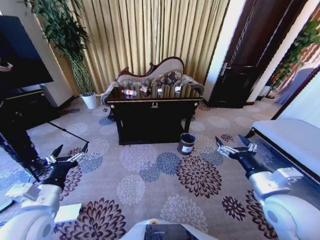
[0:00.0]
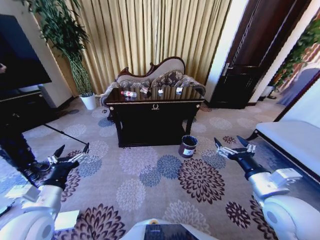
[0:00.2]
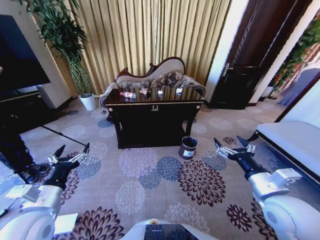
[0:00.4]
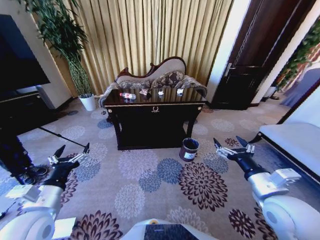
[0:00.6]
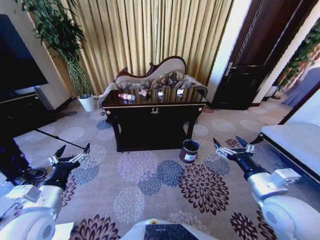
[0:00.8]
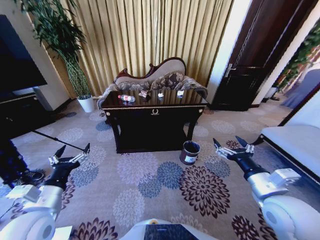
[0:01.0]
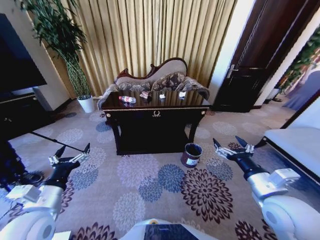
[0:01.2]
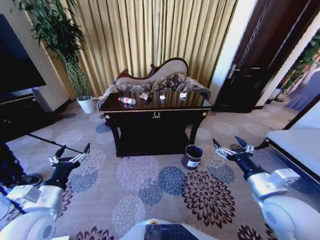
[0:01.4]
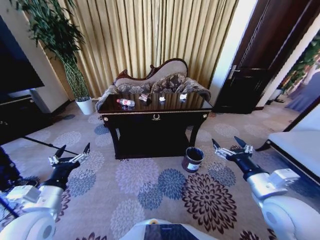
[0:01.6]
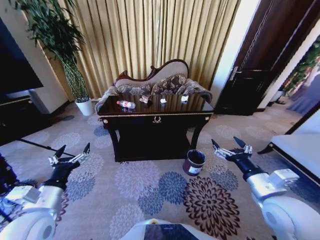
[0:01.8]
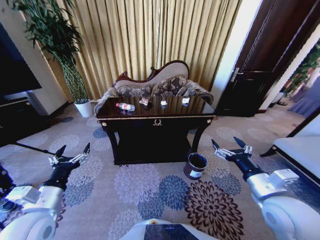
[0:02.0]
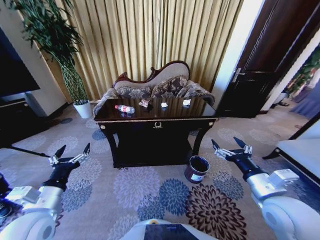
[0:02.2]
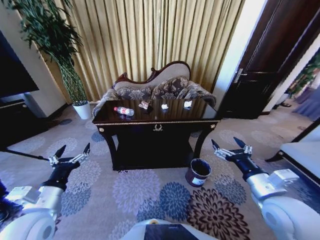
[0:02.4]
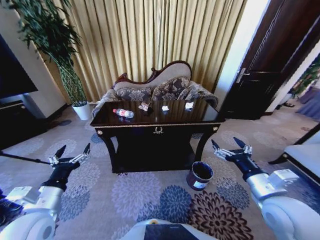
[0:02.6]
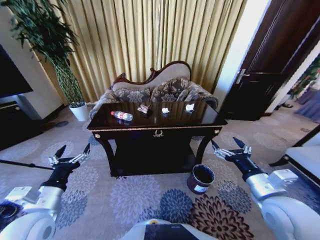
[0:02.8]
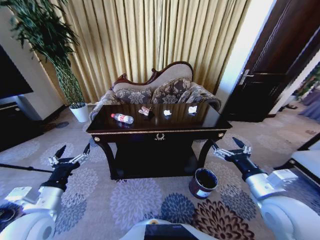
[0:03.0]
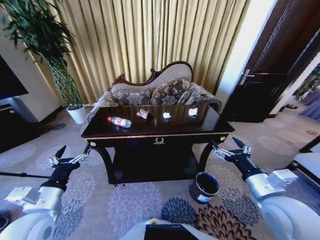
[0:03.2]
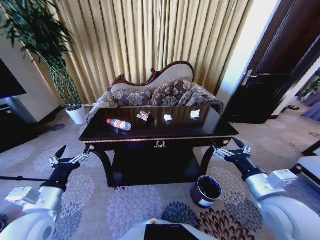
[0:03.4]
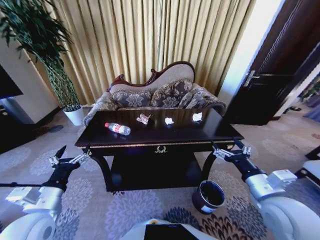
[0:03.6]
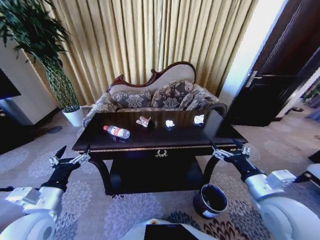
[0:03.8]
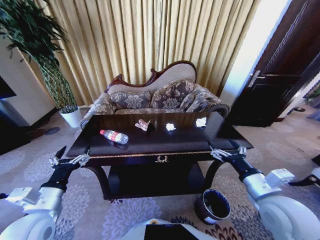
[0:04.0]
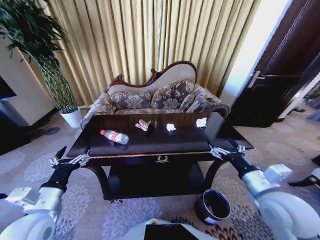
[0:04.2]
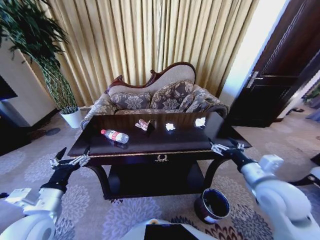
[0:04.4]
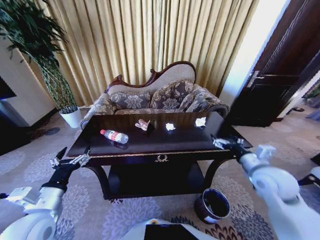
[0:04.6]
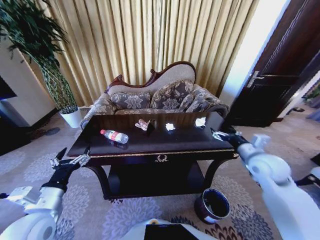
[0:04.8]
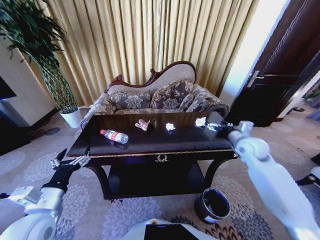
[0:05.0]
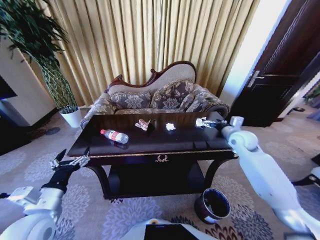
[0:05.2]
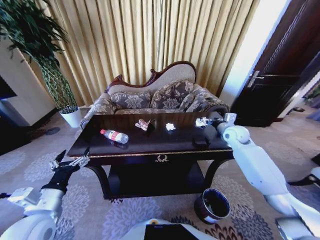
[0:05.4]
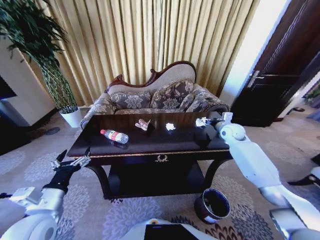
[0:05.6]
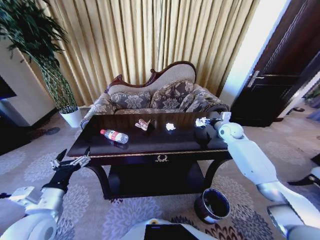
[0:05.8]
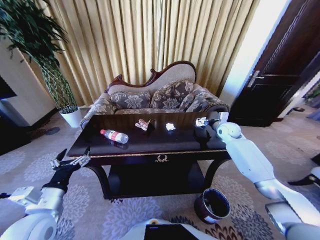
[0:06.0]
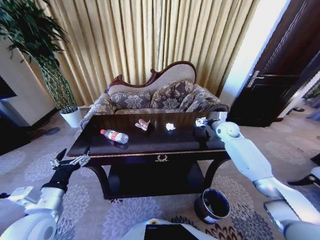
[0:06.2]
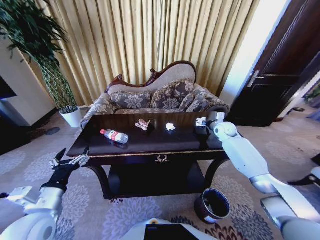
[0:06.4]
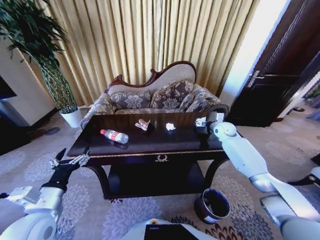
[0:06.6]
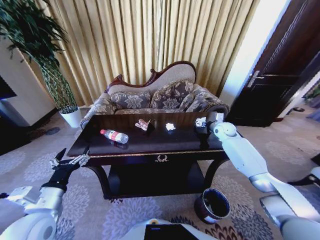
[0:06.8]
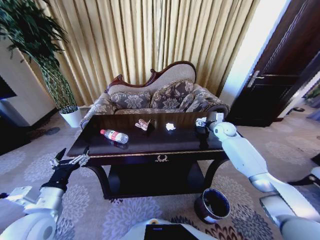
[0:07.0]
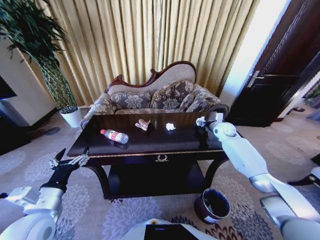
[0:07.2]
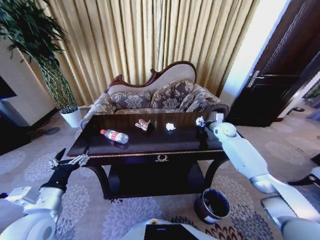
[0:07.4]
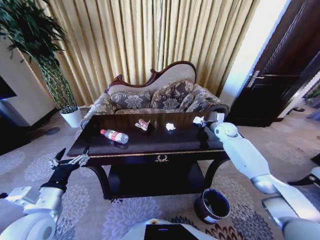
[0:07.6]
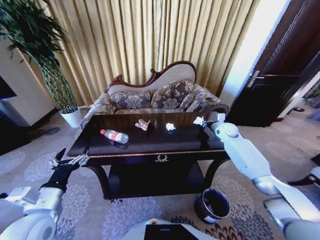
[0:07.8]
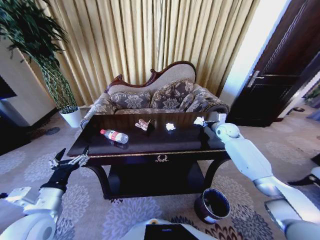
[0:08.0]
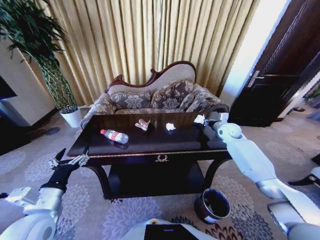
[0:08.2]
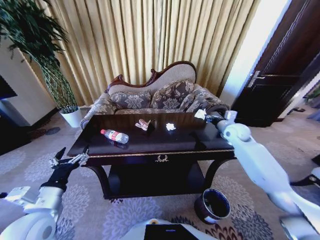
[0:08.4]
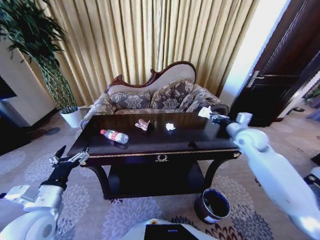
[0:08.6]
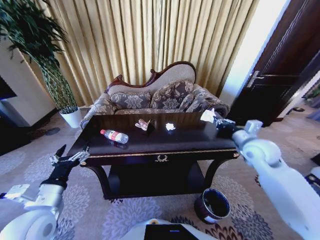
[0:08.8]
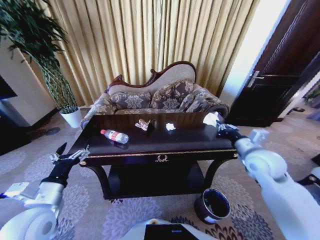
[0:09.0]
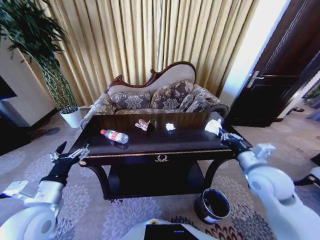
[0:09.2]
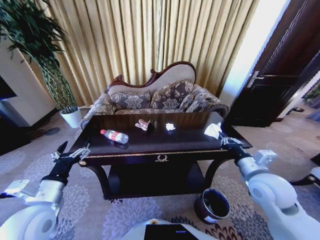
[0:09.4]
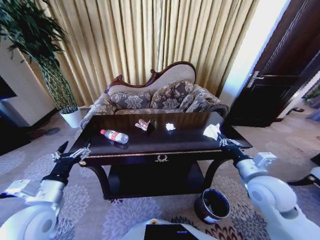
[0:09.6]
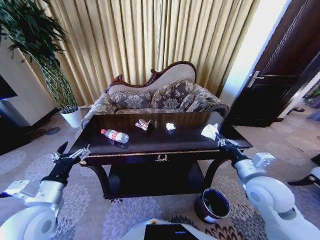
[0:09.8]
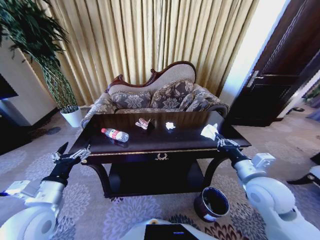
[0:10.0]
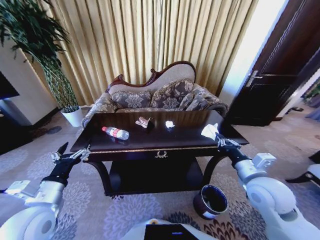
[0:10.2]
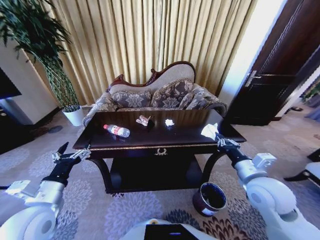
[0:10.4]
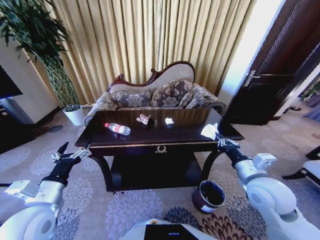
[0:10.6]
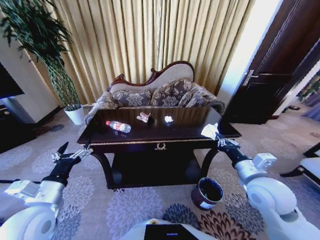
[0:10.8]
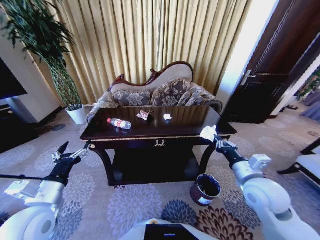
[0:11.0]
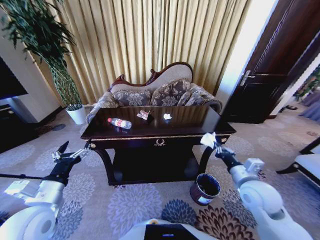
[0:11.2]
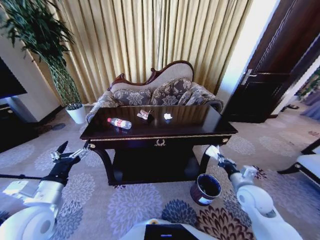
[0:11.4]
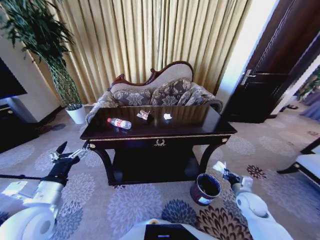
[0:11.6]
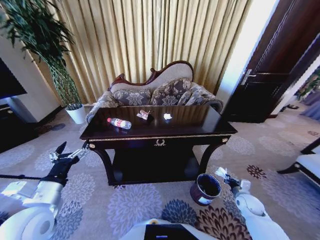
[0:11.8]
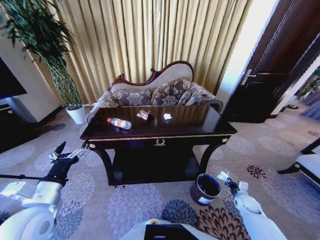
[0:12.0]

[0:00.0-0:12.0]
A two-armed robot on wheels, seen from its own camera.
Task of the whole recording: Move to the front of the table and place the trash on the table into the trash bin.
0:04.4 to 0:06.0: The right gripper is displaced forward by roughly 30 cm.
0:06.0 to 0:07.6: The right gripper closes.
0:07.6 to 0:09.0: The right gripper moves backward, about 25 cm.
0:09.0 to 0:10.4: The right gripper heads backward, covering about 10 cm.
0:10.4 to 0:12.0: The right gripper goes about 35 cm downward and to the right.

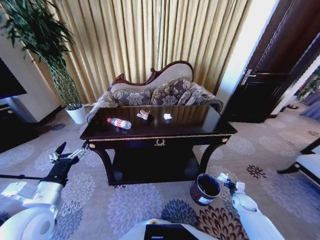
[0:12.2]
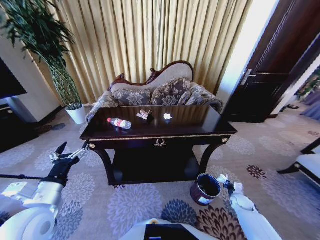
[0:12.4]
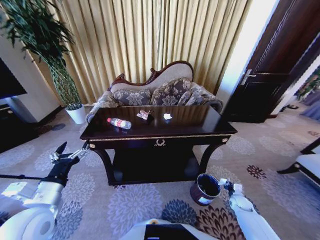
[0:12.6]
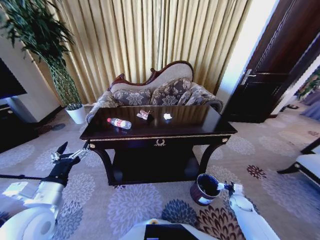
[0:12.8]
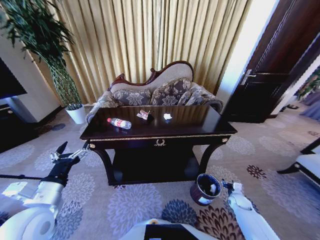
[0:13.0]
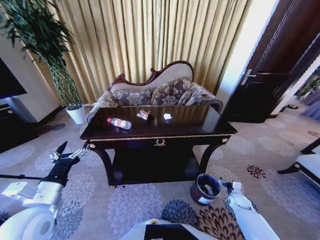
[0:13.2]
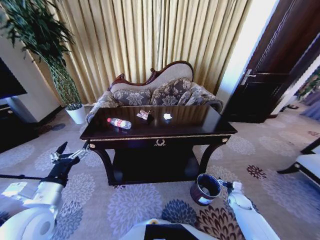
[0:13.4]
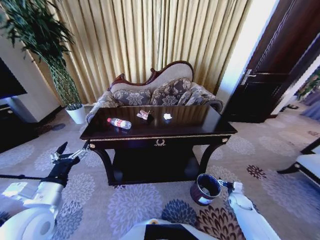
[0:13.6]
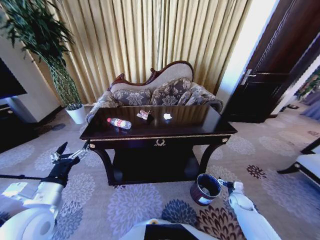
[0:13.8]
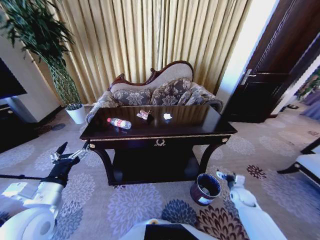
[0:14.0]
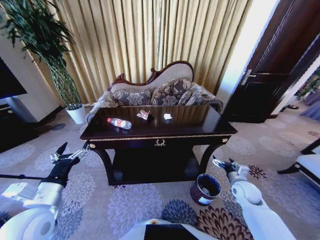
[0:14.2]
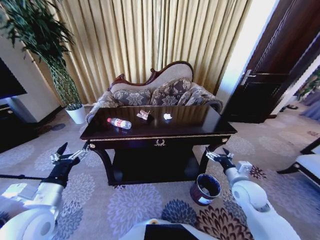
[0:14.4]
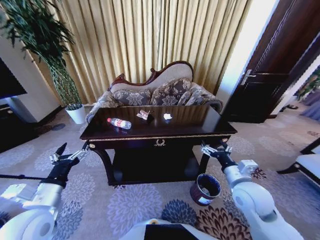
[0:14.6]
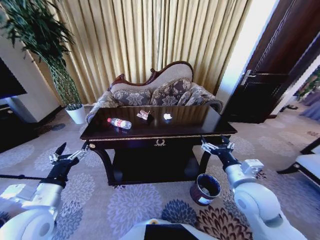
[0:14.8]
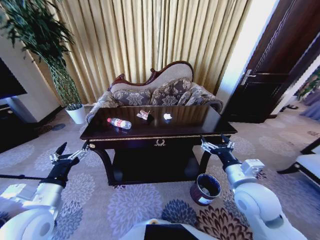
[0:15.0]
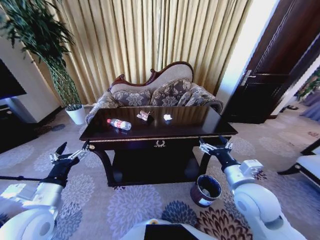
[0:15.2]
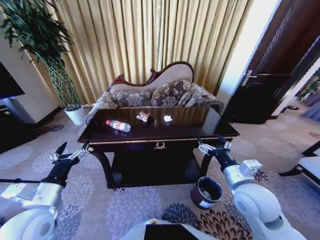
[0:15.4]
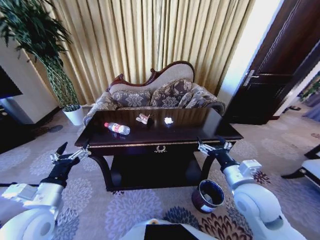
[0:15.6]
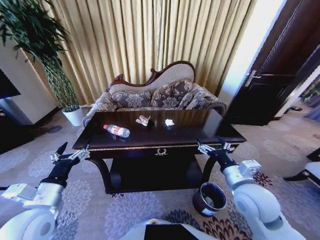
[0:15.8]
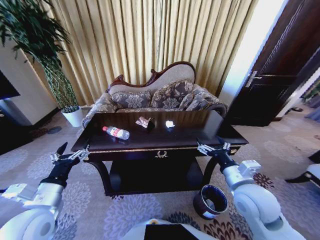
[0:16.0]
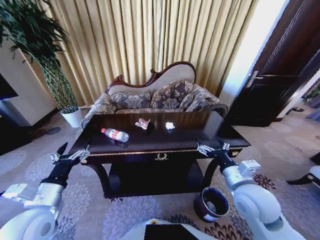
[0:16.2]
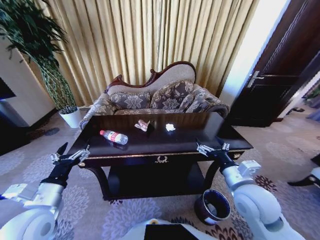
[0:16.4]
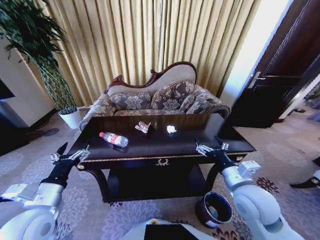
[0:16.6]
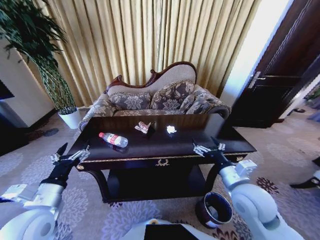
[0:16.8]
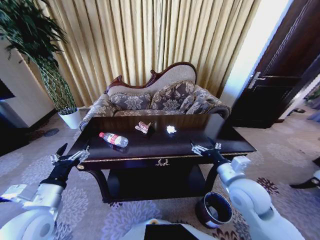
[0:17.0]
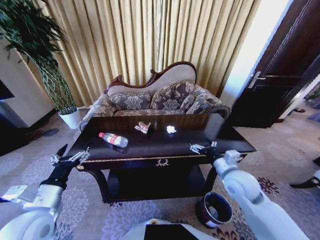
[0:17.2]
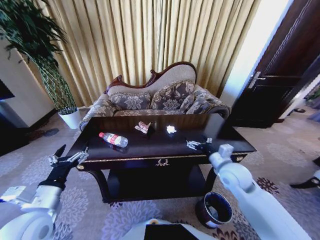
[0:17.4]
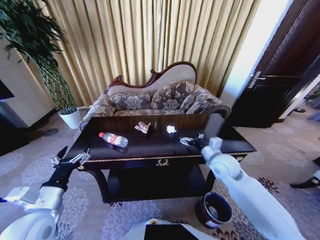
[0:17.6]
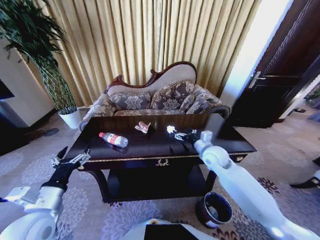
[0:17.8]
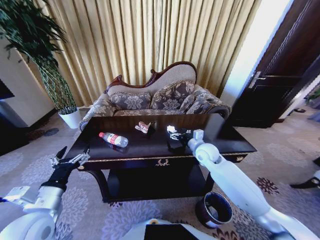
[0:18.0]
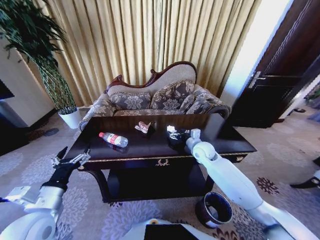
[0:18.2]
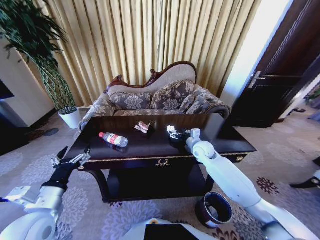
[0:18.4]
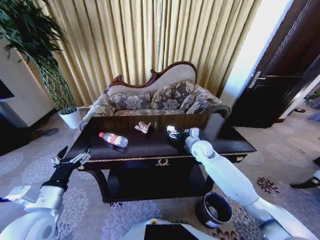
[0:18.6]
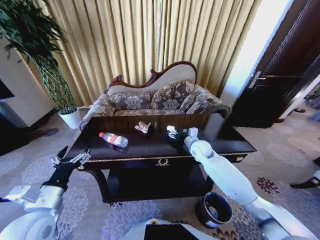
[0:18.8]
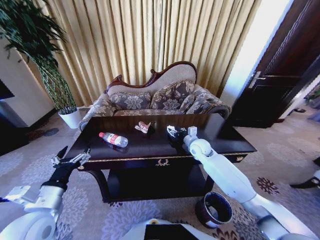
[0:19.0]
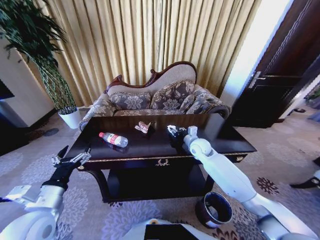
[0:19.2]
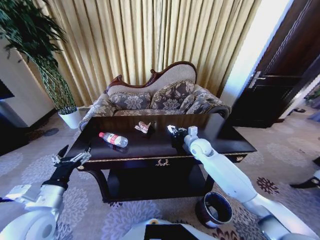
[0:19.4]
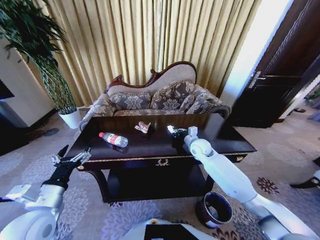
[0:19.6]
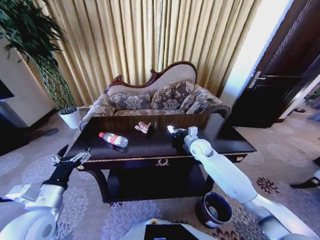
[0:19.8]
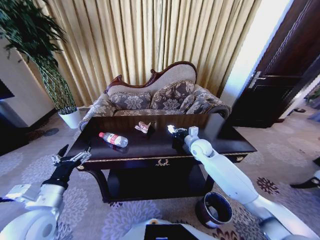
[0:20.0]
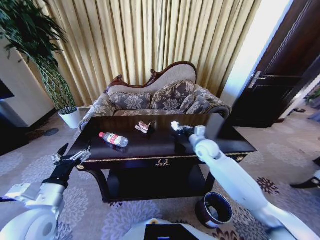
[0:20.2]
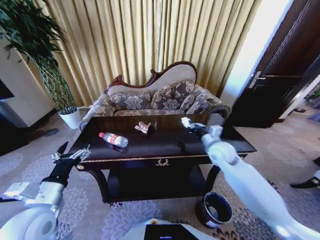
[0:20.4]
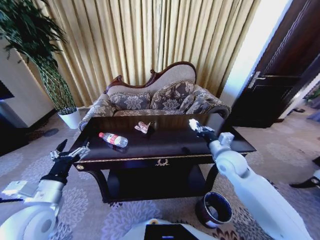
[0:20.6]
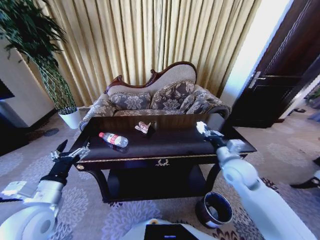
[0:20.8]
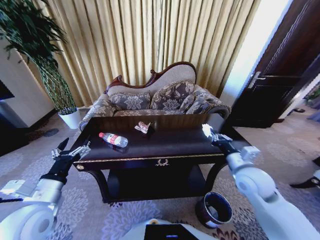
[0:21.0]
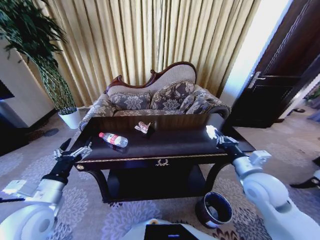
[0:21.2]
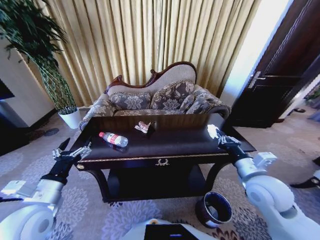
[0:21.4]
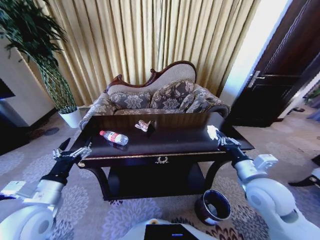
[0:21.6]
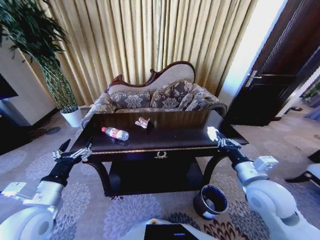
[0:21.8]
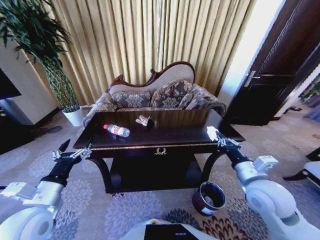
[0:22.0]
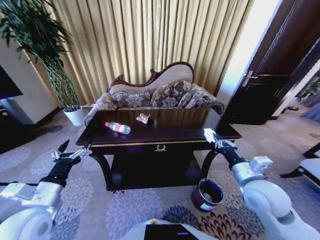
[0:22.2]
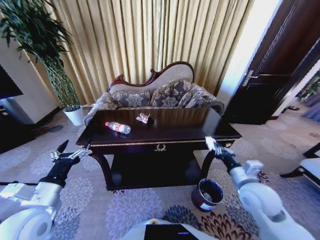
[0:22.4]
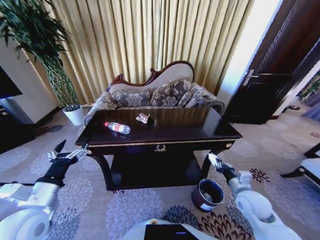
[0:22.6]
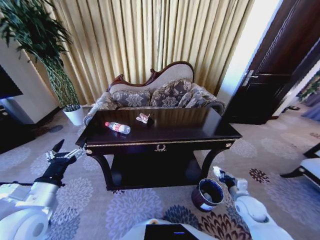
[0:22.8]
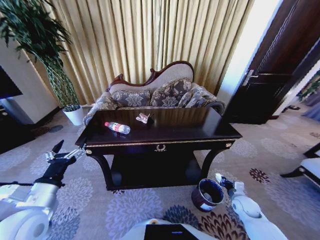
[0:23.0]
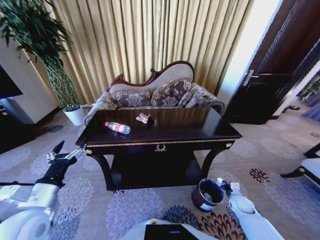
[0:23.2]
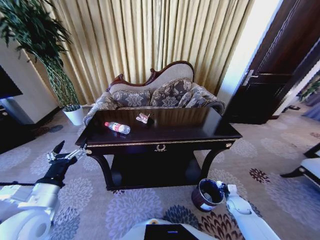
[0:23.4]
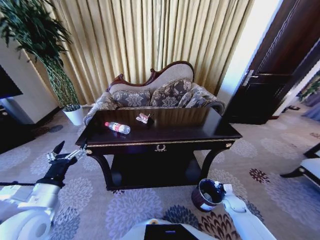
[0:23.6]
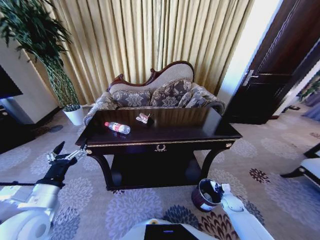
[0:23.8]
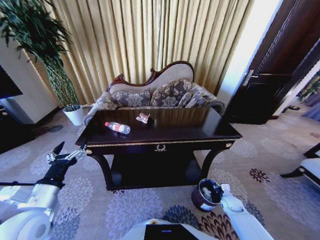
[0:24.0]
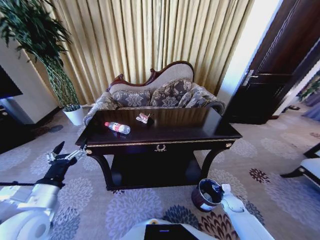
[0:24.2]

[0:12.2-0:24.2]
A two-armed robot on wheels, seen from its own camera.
Task of the whole recording: Move to the front of the table and place the trash on the table into the trash bin.
0:12.2 to 0:13.8: The right gripper opens its fingers.
0:13.8 to 0:15.2: The right gripper shifts roughly 40 cm upward and to the left.
0:16.6 to 0:18.2: The right gripper goes approximately 25 cm forward.
0:18.2 to 0:19.8: The right gripper closes its fingers.
0:19.8 to 0:21.2: The right gripper heads backward and to the right, covering approximately 25 cm.
0:21.2 to 0:22.6: The right gripper is displaced downward by about 15 cm.
0:22.6 to 0:24.2: The right gripper shifts about 20 cm downward, and opens its fingers.
